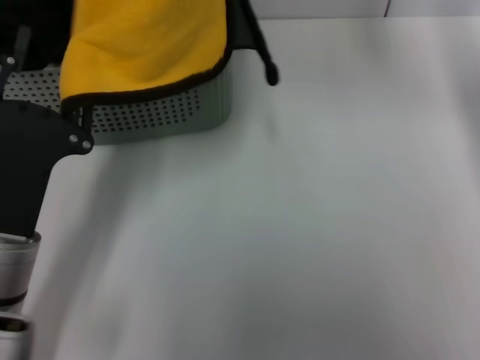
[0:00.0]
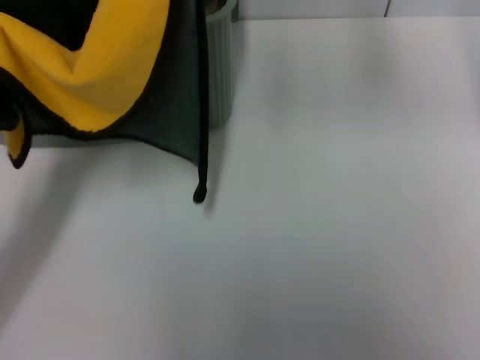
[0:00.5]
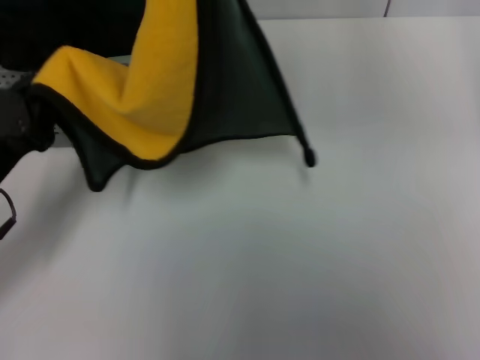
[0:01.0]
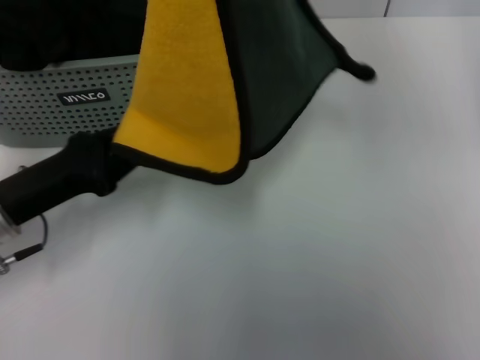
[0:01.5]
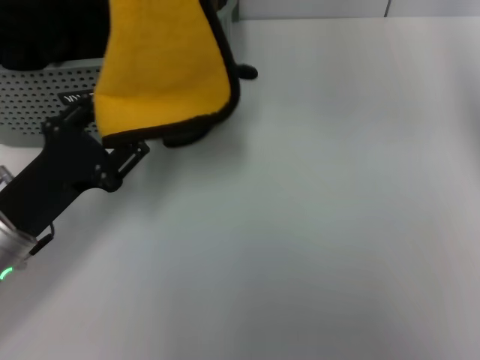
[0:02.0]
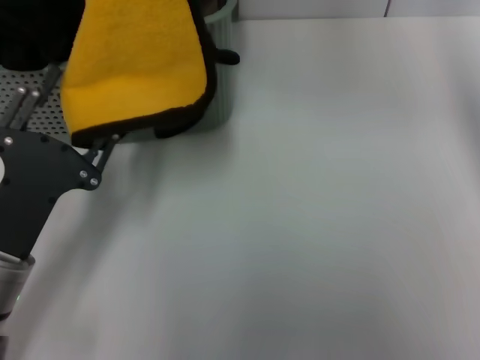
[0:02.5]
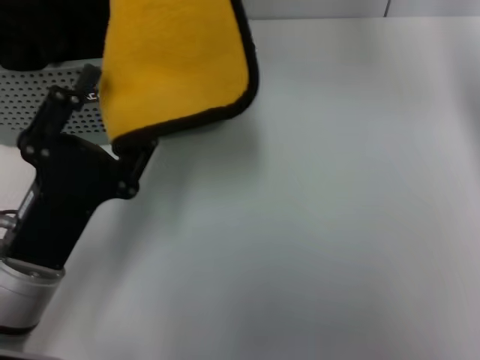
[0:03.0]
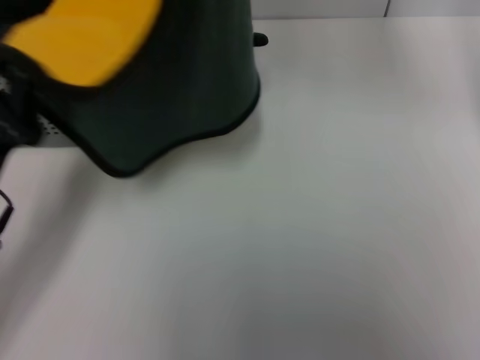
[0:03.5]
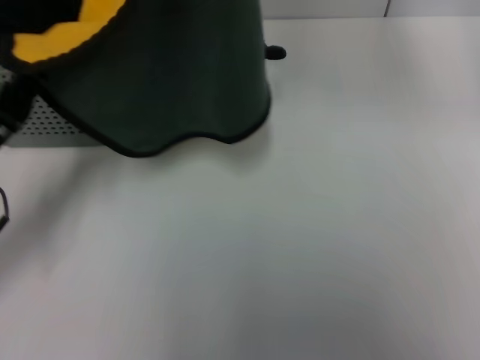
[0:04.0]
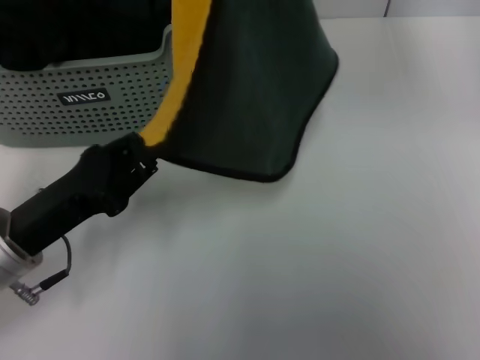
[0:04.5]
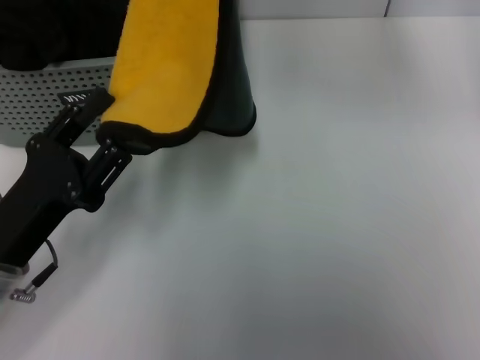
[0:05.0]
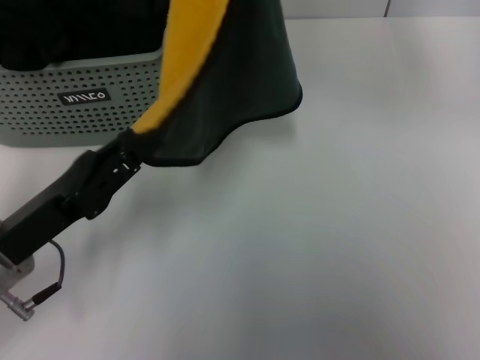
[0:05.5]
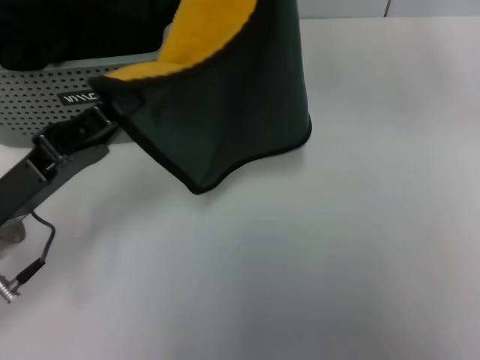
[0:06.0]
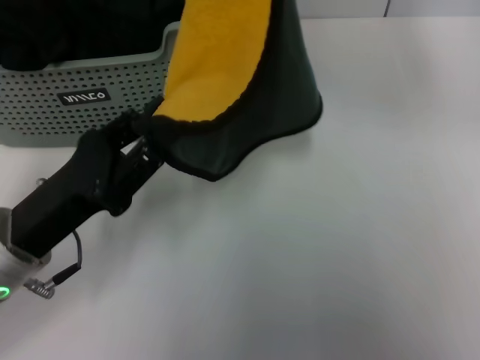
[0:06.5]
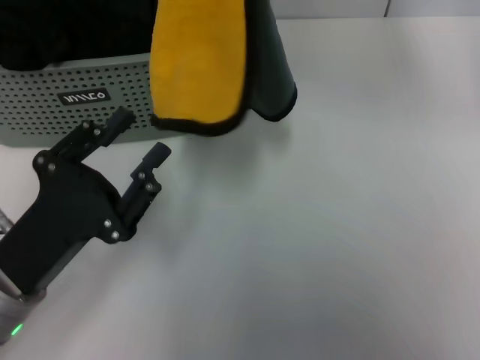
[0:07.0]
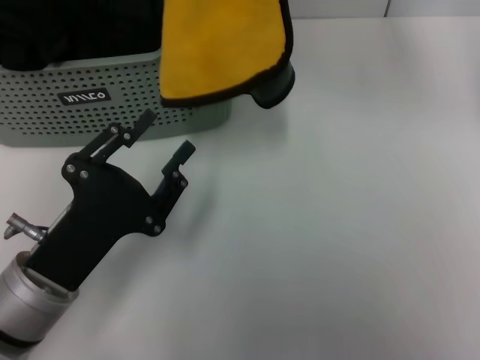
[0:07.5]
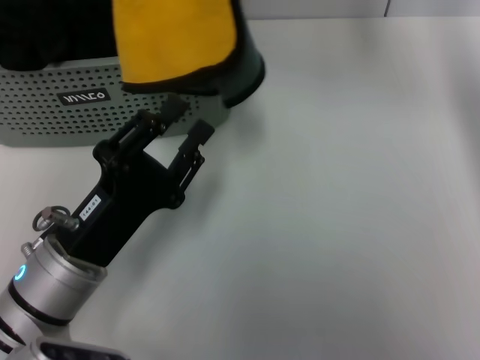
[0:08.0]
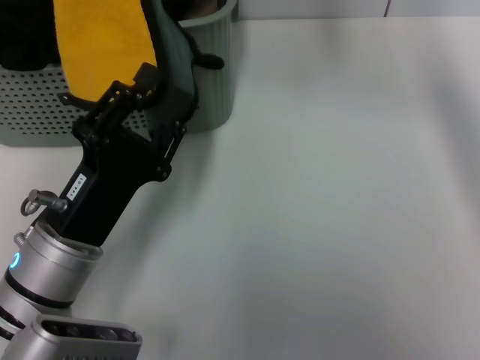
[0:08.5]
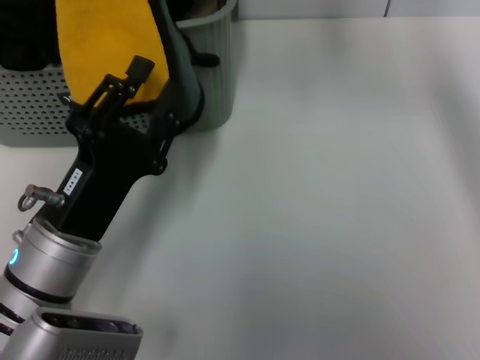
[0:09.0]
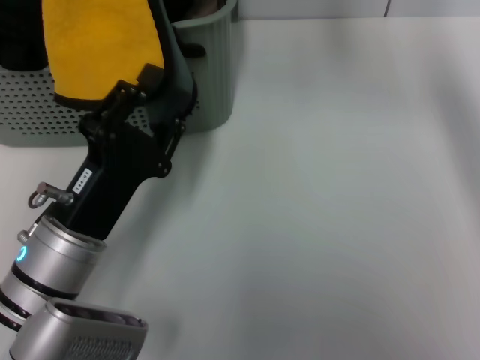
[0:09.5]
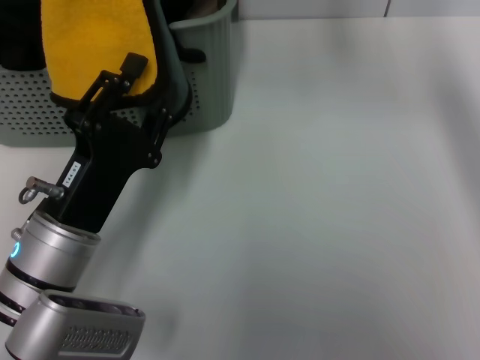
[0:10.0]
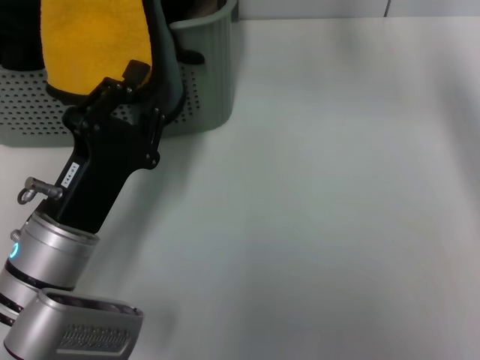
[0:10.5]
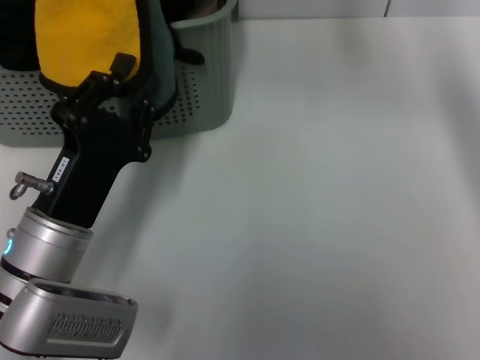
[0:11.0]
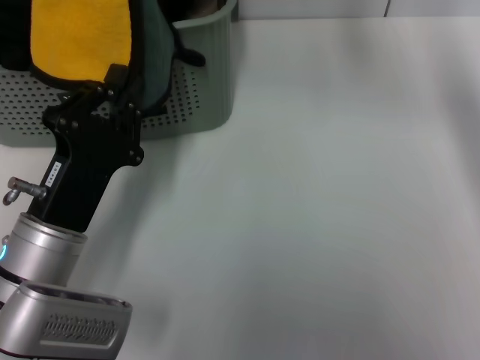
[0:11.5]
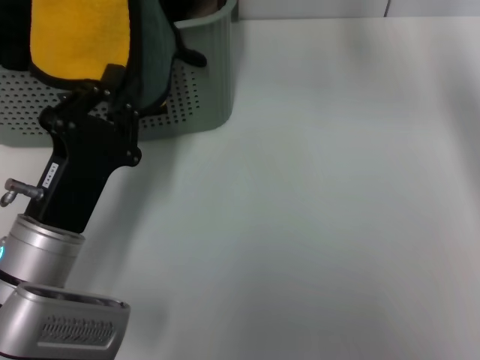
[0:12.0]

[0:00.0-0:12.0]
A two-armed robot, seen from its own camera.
Task of the whole recording: pick up the towel from the storage box and lay it flat on the table.
0:00.0 to 0:02.0: The left gripper closes and opens again. The right gripper goes some 10 cm backward and upward.
0:02.0 to 0:04.0: The left gripper closes its fingers; the right gripper is displaced to the right by about 5 cm.
0:04.0 to 0:06.0: The left gripper opens, then closes once more.
0:06.0 to 0:08.0: The right gripper moves to the left, approximately 10 cm. Meanwhile the left gripper moves to the right, roughly 5 cm, and opens up.
0:10.0 to 0:12.0: The left gripper closes up.

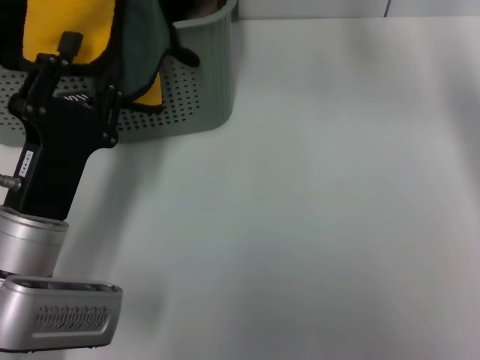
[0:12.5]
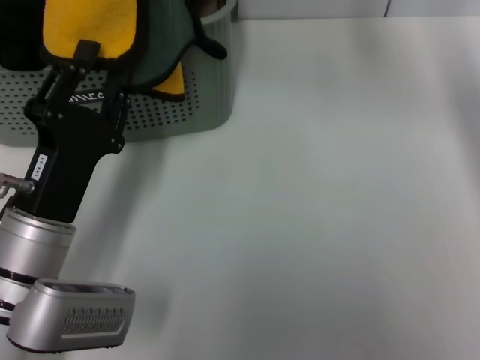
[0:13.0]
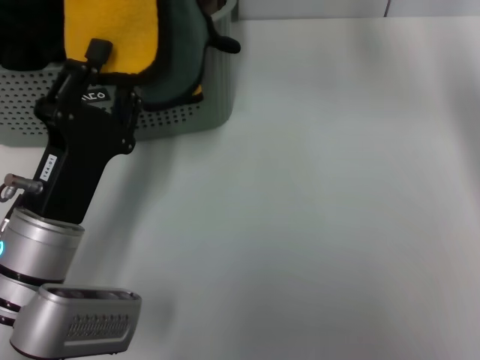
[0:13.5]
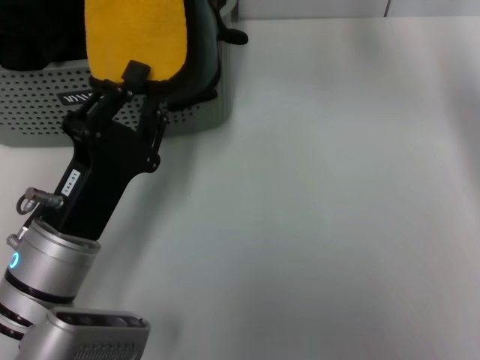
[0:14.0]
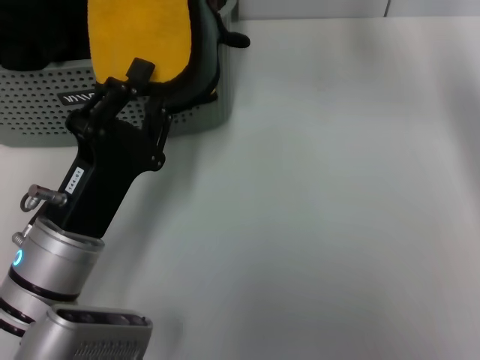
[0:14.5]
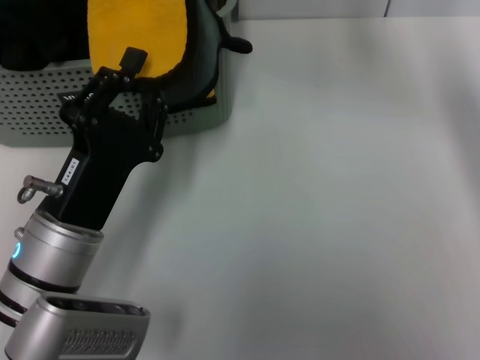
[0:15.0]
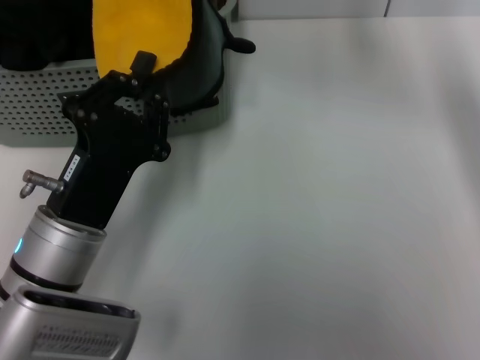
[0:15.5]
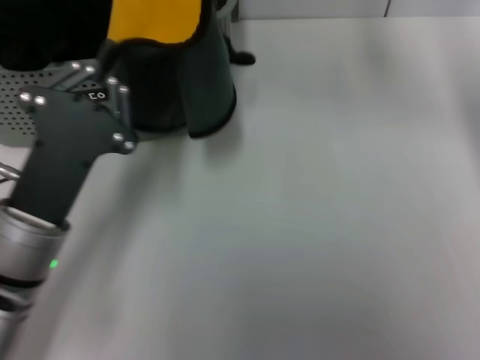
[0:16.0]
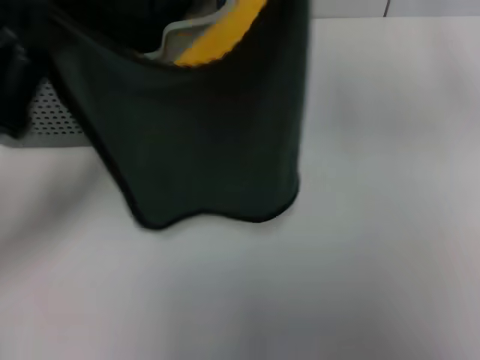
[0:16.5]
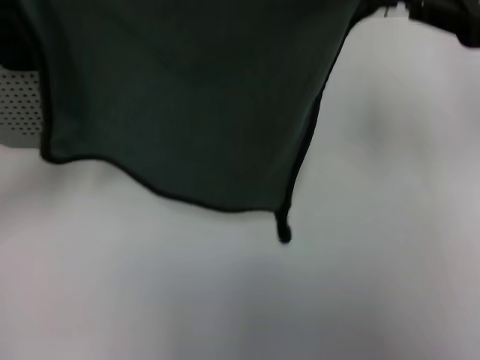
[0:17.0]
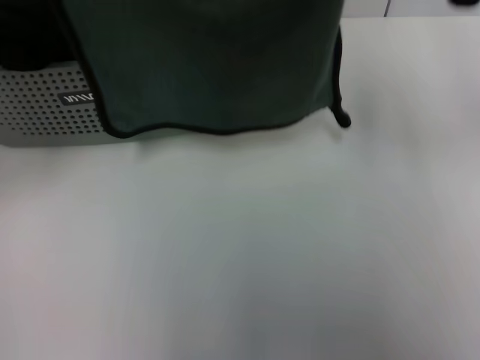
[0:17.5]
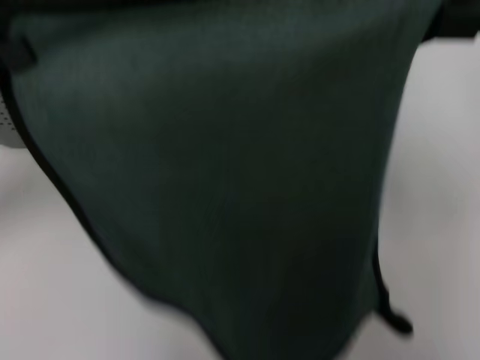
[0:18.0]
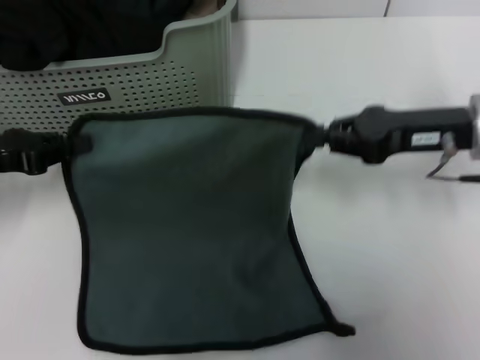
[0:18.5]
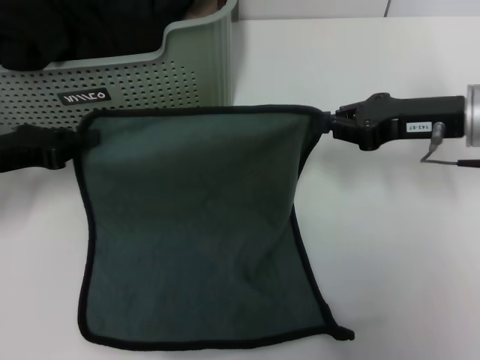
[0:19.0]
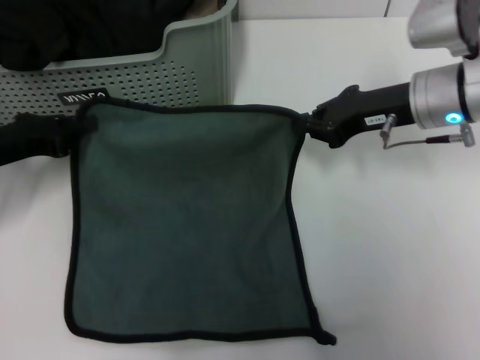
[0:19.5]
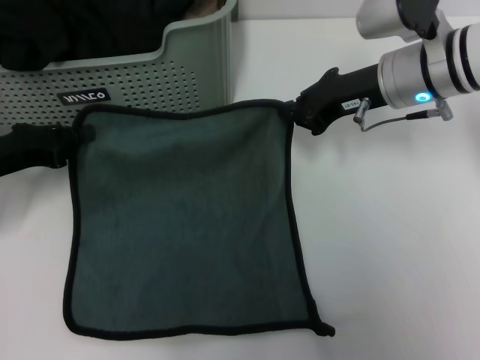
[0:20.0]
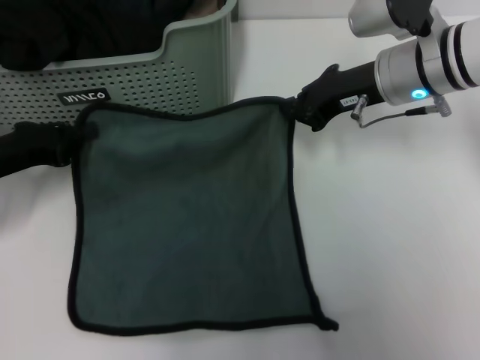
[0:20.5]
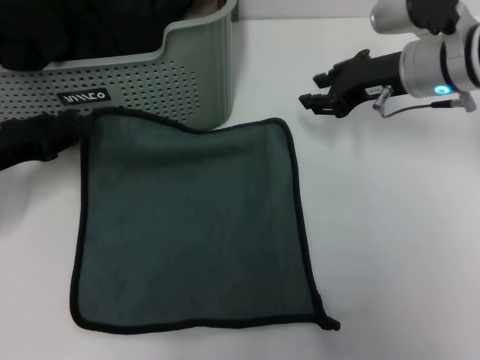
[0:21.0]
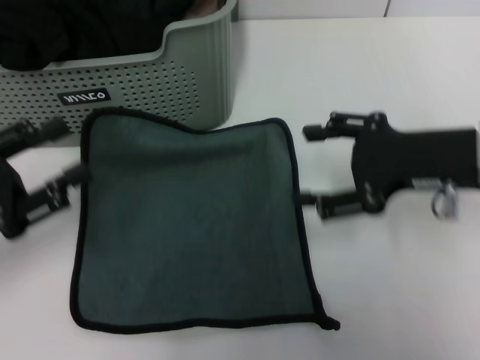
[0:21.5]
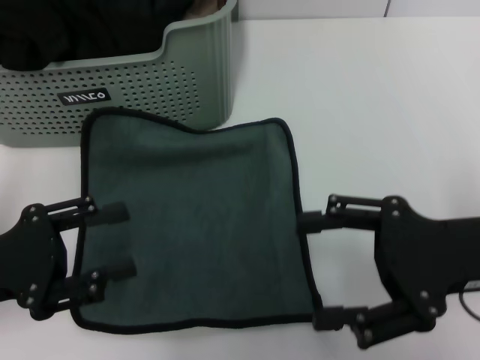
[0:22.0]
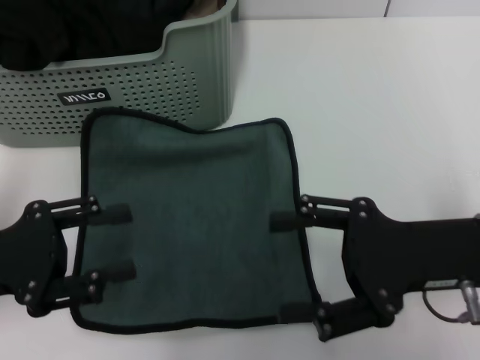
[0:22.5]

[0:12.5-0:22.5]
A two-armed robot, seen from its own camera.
Task of the whole recording: pick up the towel from the storage box and lay it flat on the table.
Step, 0:12.5 to 0:20.5: Spread the towel flat with the right gripper.
0:14.5 to 0:16.5: The right gripper shifts about 15 cm to the right and backward, while the left gripper shifts about 10 cm to the left and upward.
0:16.5 to 0:18.5: The left gripper is displaced to the left and forward by roughly 10 cm; the right gripper is displaced downward by approximately 15 cm.
0:18.5 to 0:20.5: The right gripper moves to the left and forward, approximately 10 cm.
0:20.5 to 0:22.5: The right gripper is displaced backward by about 15 cm, and opens up. The left gripper moves backward, roughly 10 cm, and opens its fingers.
